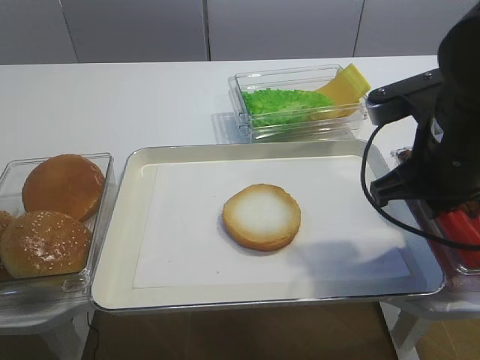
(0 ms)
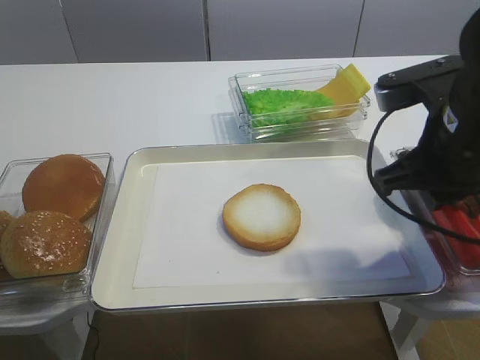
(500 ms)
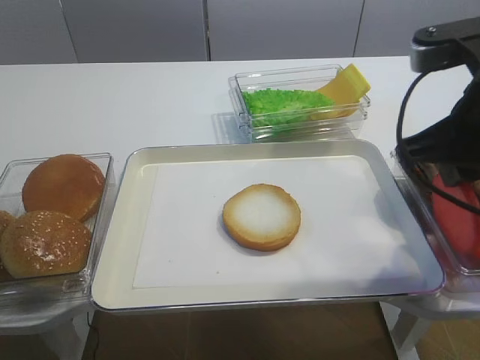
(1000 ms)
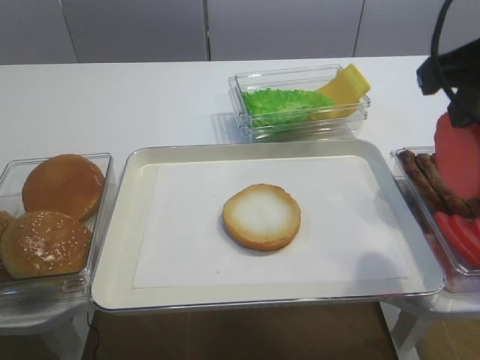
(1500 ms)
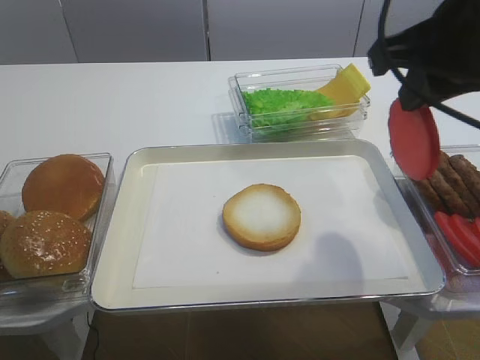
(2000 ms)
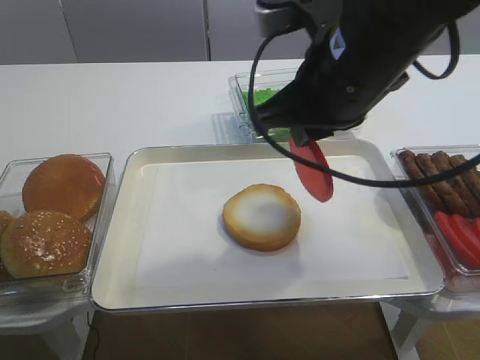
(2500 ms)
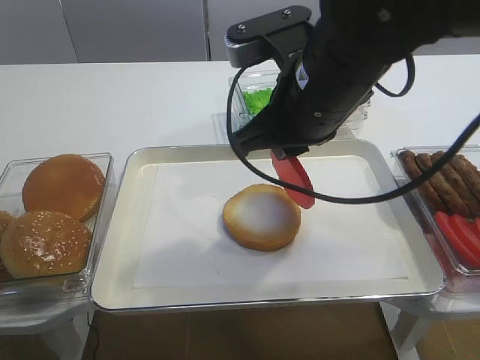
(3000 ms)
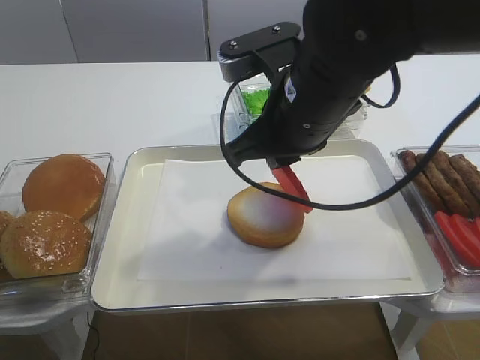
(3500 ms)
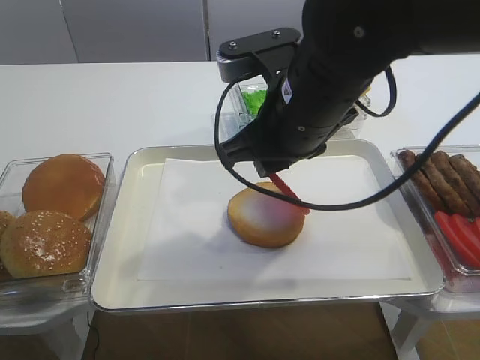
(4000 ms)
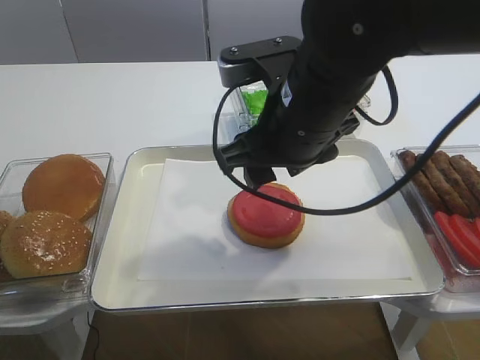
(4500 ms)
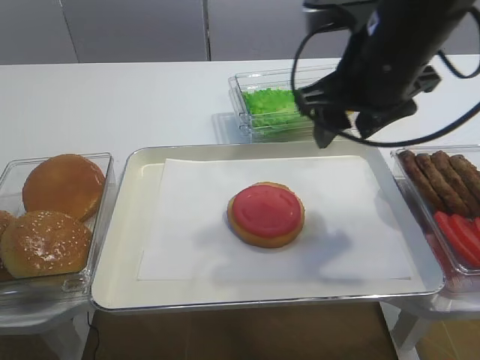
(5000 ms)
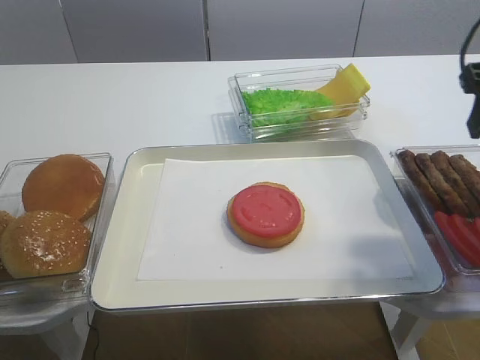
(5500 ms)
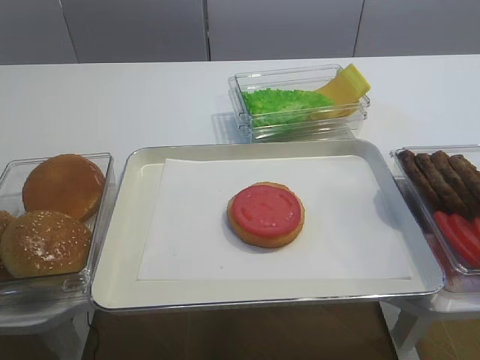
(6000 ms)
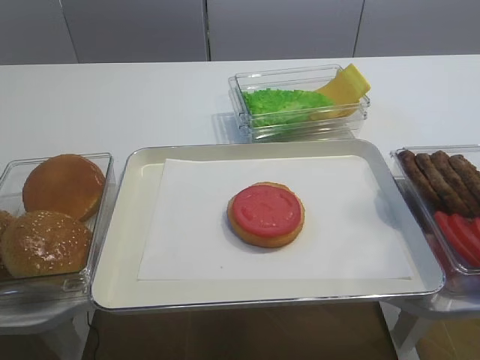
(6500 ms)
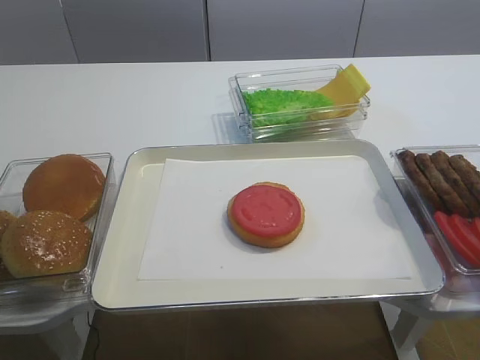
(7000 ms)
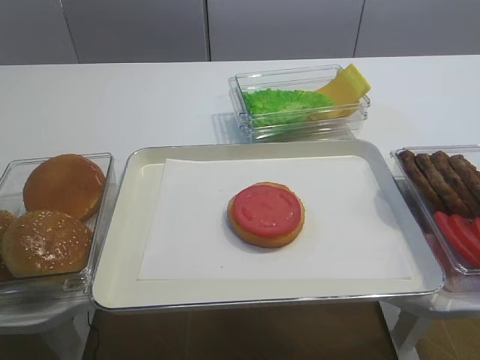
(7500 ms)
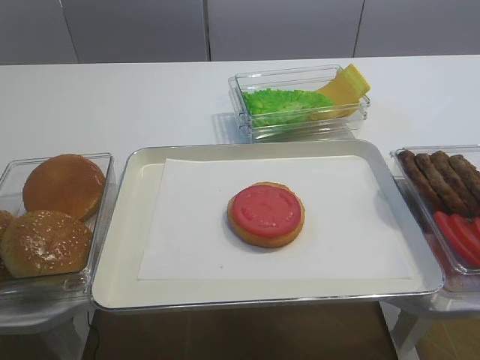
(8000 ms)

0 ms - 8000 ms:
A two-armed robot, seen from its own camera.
Step, 1500 ms - 4500 ms: Place the tomato slice on the bread slice with the right gripper.
0 ms - 2000 ms: The right gripper moves upward, approximately 10 cm.
2000 ms - 4000 ms: The right gripper travels to the left and downward by approximately 15 cm, and opens its fingers.
4000 ms - 6000 ms: The right gripper goes approximately 25 cm to the right and backward, and opens up.

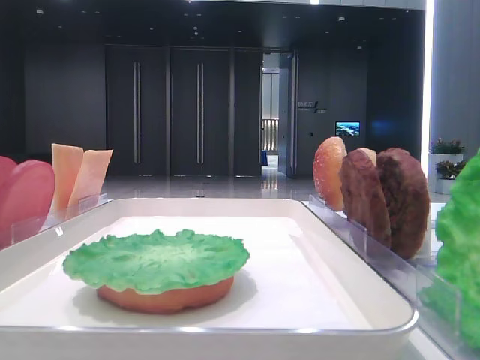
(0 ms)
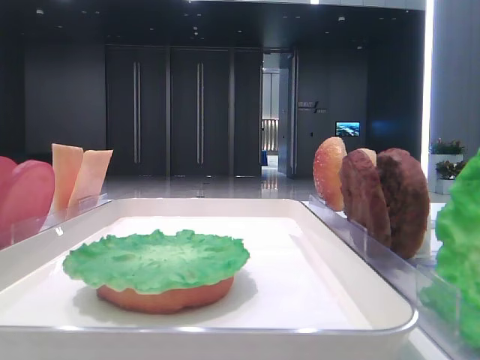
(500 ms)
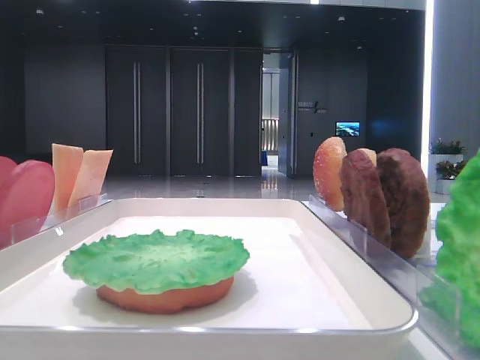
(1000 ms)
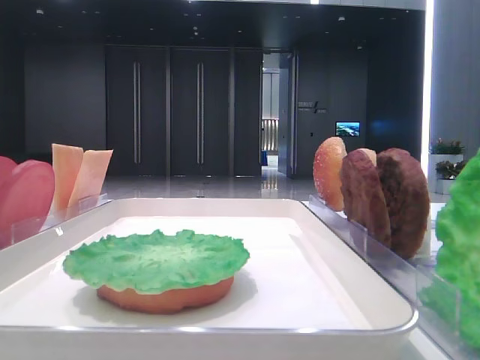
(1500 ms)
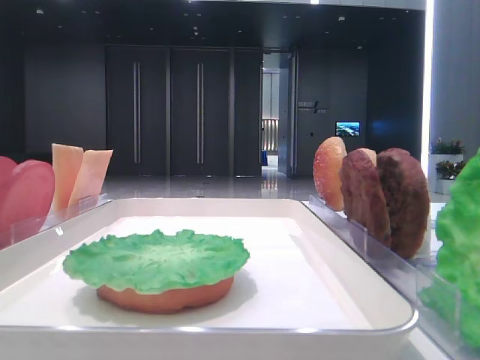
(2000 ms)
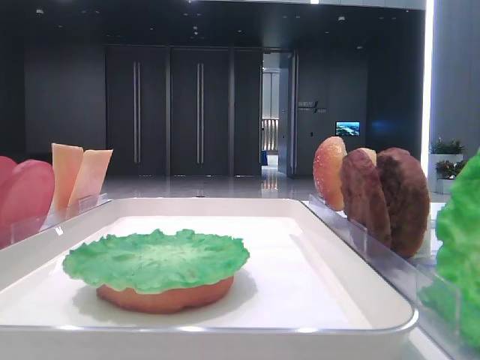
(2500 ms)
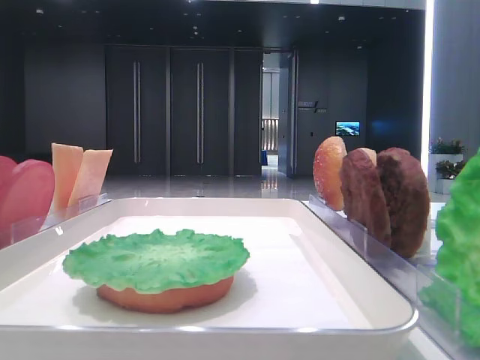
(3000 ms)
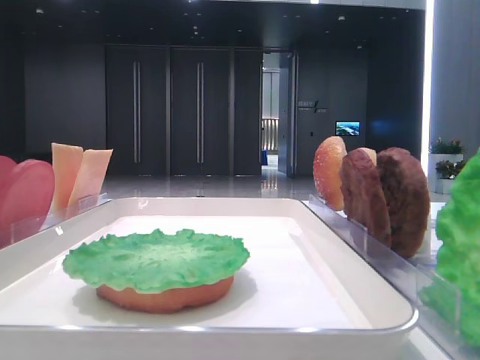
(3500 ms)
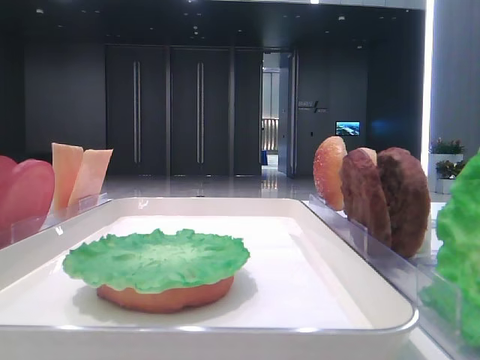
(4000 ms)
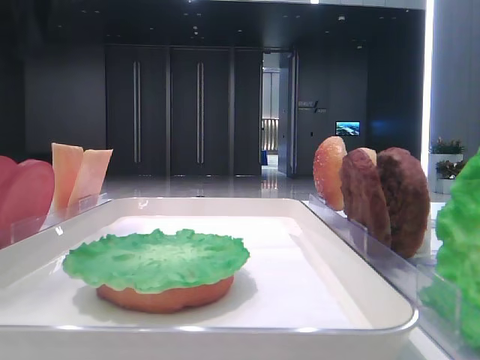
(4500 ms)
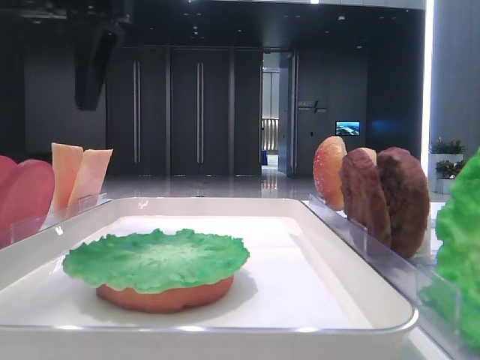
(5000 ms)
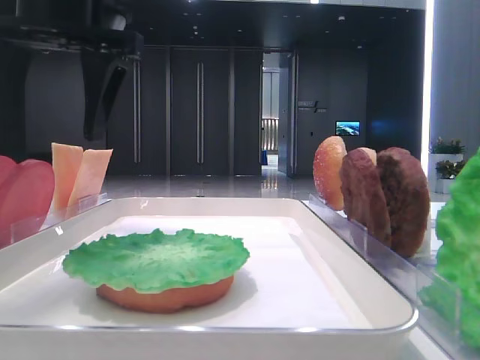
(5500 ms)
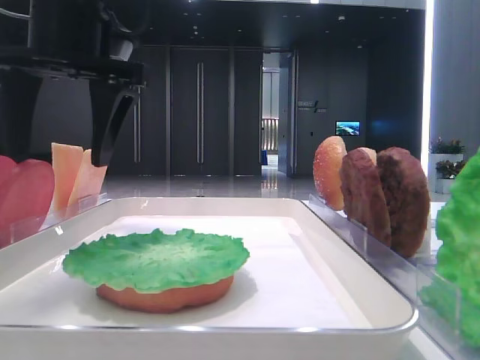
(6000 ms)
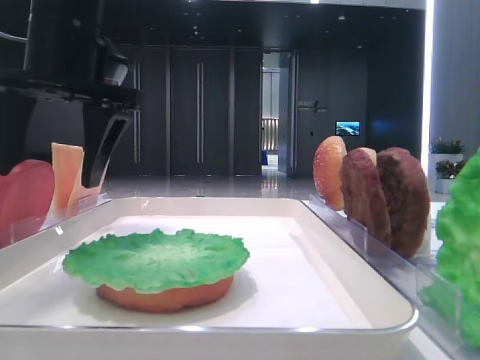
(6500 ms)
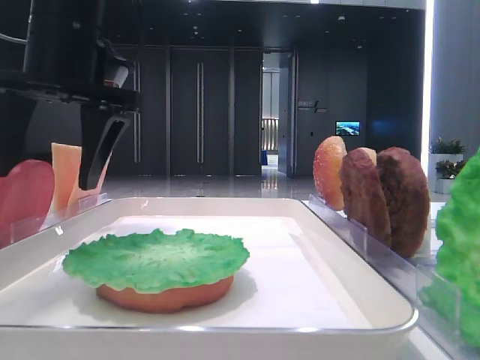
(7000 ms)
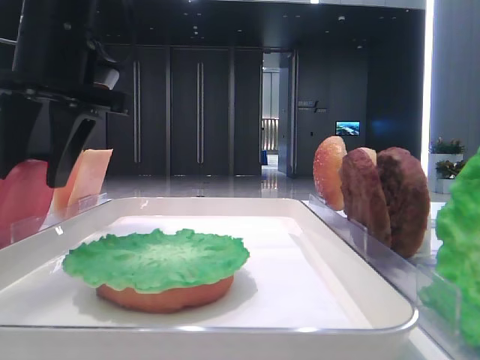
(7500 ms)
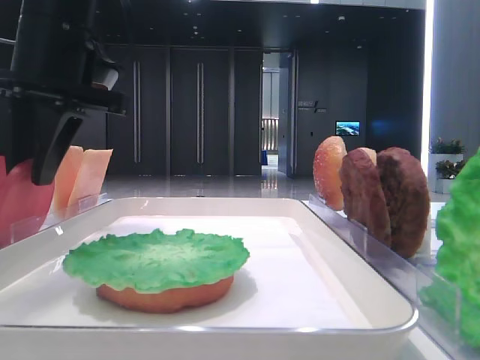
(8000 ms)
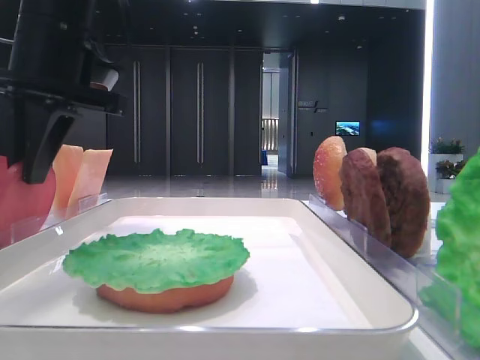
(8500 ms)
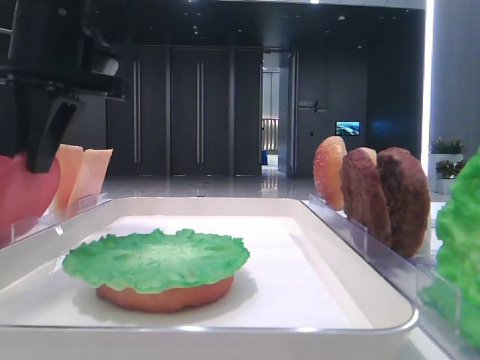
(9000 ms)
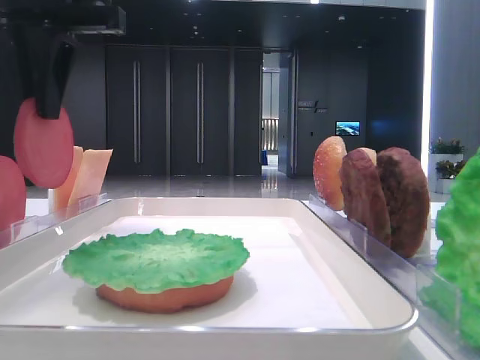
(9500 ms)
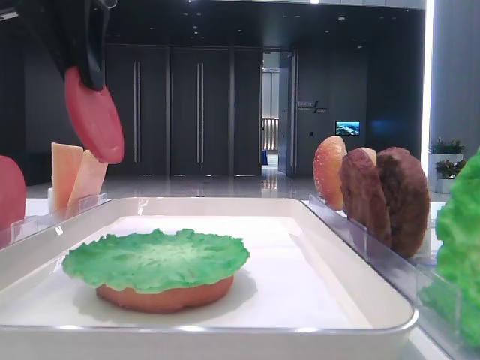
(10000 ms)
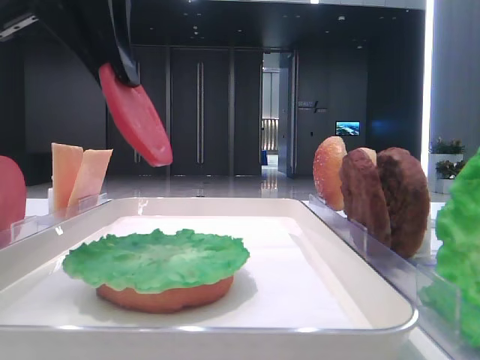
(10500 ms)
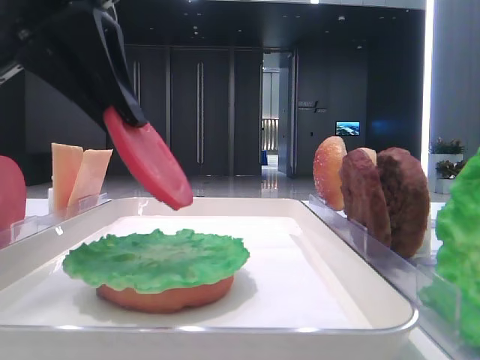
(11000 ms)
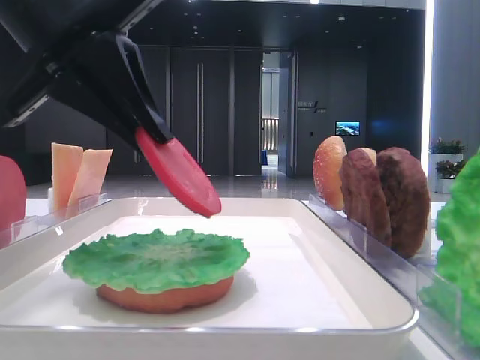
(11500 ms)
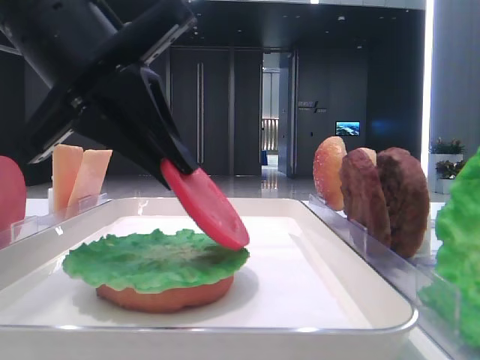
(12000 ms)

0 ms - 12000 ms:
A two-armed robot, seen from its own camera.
Step, 0 ms - 8000 ms: Pick up the tomato slice with the left hand.
4000 ms - 6000 ms: The left gripper shifts about 20 cm to the right and downward.
6000 ms - 8000 ms: The left gripper closes its fingers.
8000 ms - 10000 ms: The left gripper shifts roughly 5 cm upward.
10000 ms - 12000 ms: The left gripper shifts some 10 cm downward and backward.

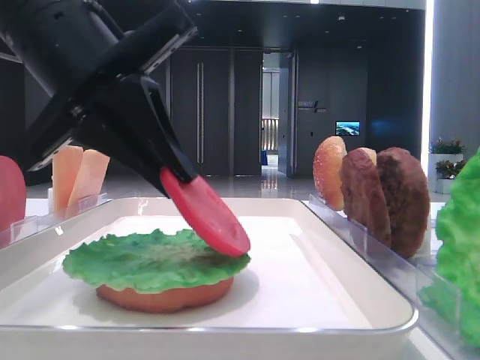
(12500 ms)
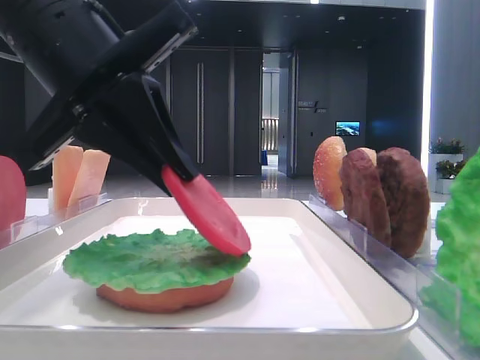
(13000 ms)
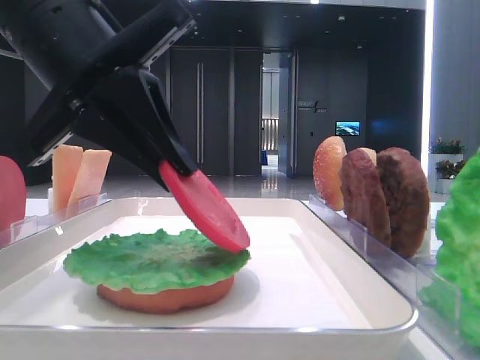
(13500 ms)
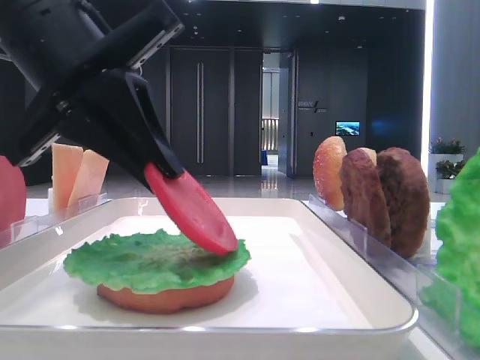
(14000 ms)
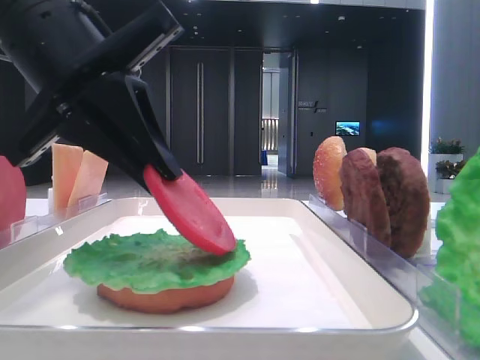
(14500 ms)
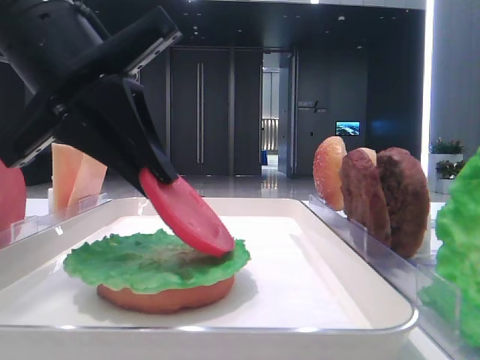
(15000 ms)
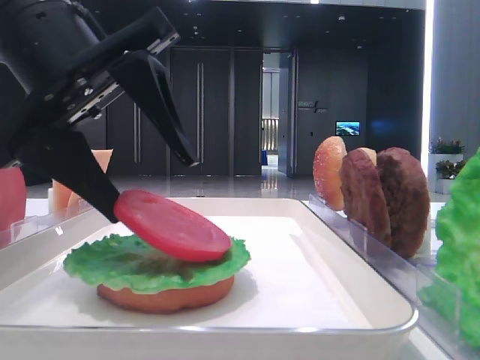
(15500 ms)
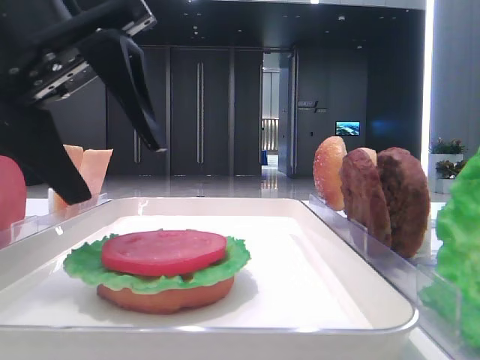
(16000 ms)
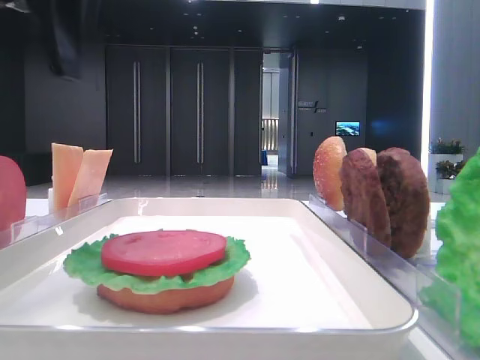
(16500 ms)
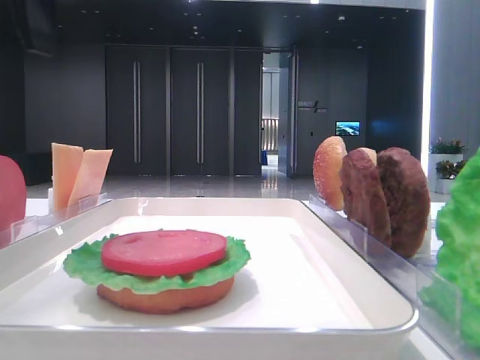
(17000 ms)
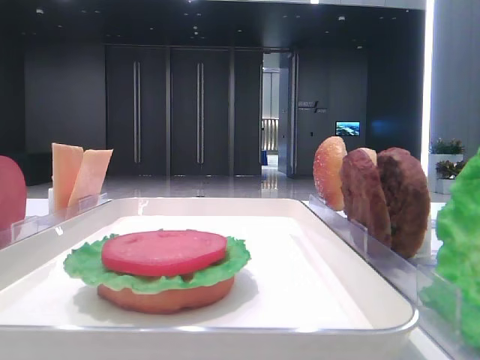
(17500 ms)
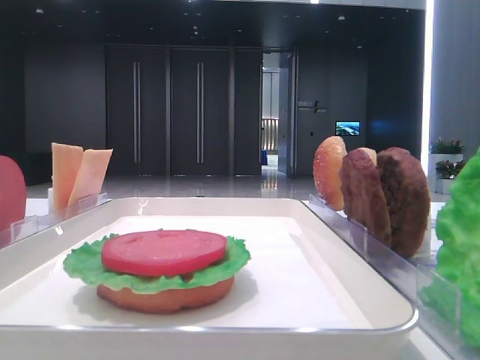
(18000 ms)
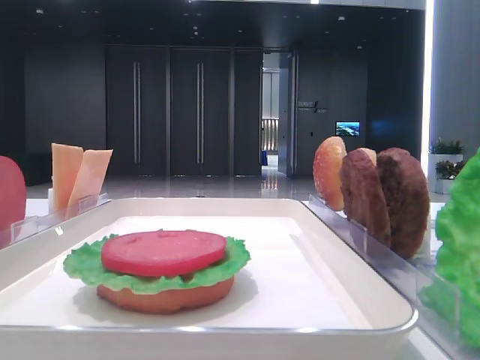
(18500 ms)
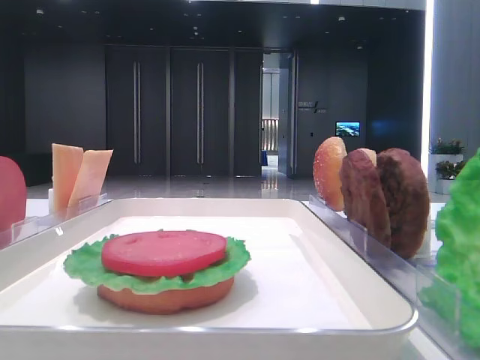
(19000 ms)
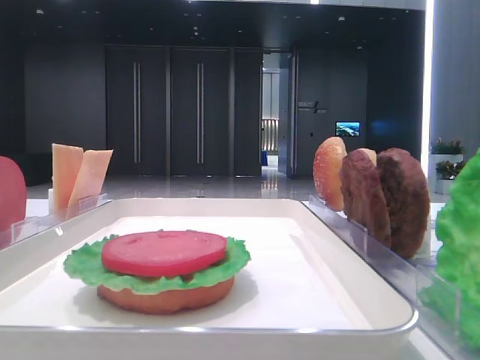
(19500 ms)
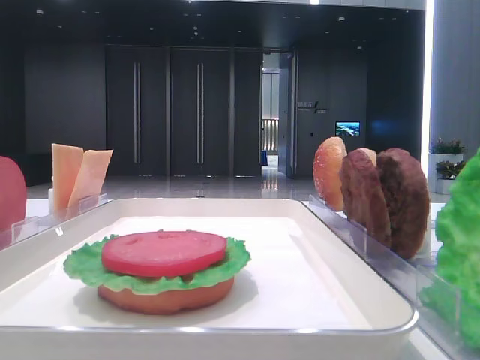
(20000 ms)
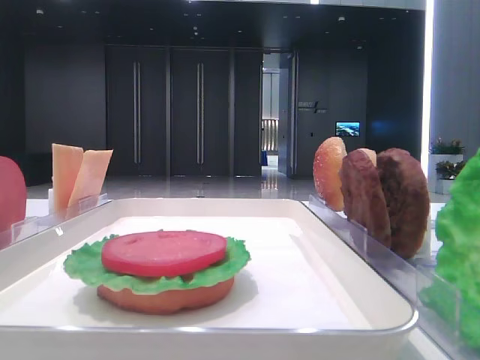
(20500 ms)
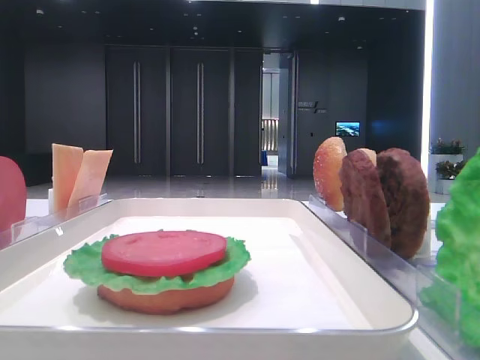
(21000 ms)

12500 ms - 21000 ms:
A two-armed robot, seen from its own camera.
Step, 12500 ms - 15500 ms: Place the tomato slice on the lettuce leaf with the left hand.
12500 ms - 14500 ms: The two grippers keep their place.
14500 ms - 16500 ms: The left gripper travels upward by roughly 10 cm, and opens its fingers.
16500 ms - 19000 ms: The left gripper travels backward and to the left by some 25 cm.
